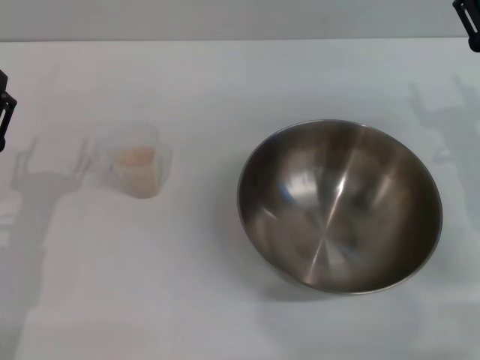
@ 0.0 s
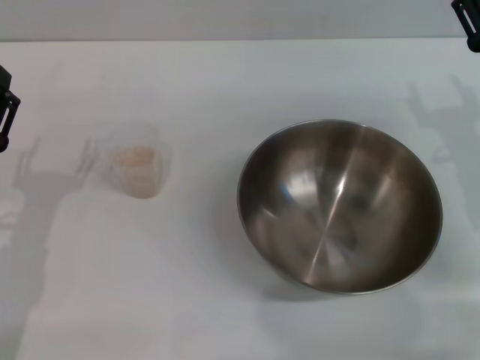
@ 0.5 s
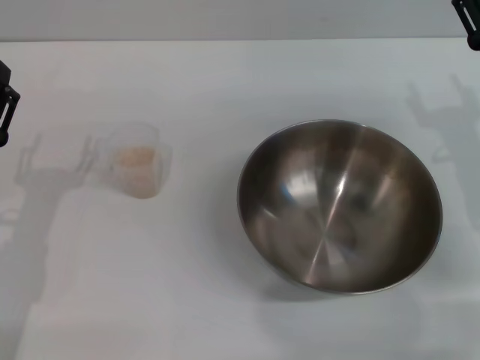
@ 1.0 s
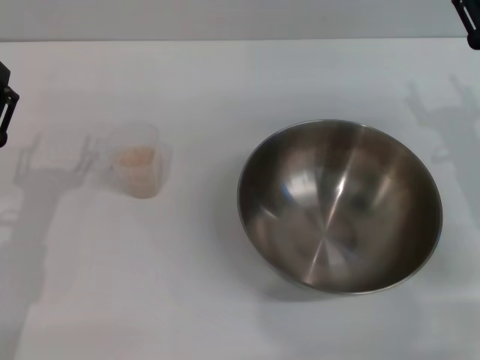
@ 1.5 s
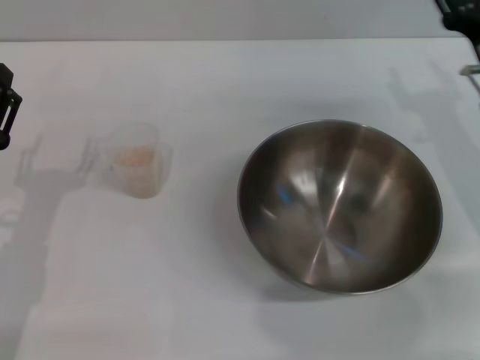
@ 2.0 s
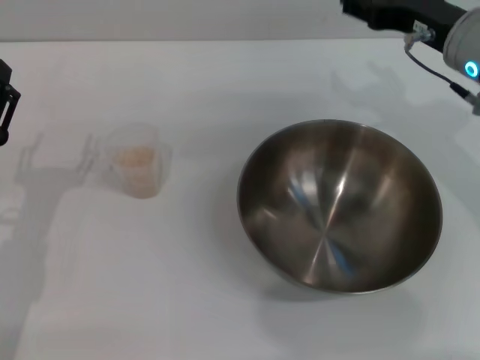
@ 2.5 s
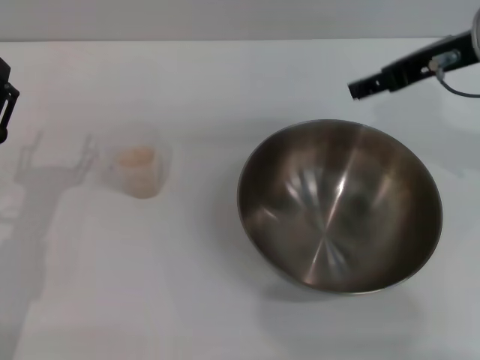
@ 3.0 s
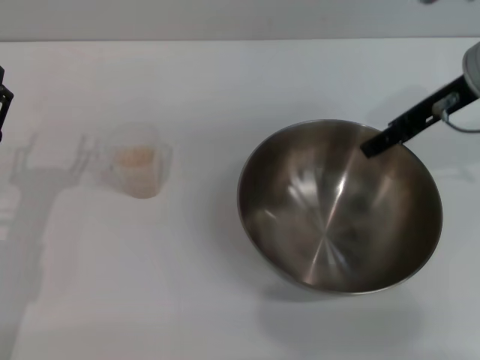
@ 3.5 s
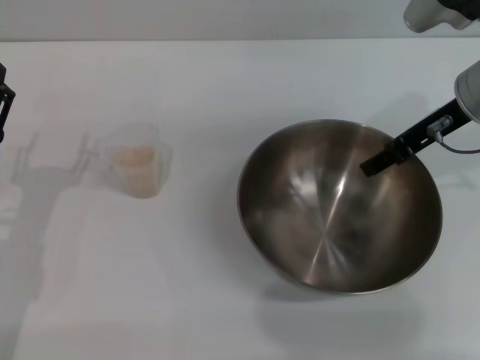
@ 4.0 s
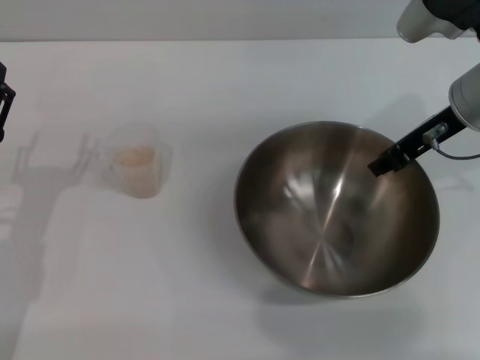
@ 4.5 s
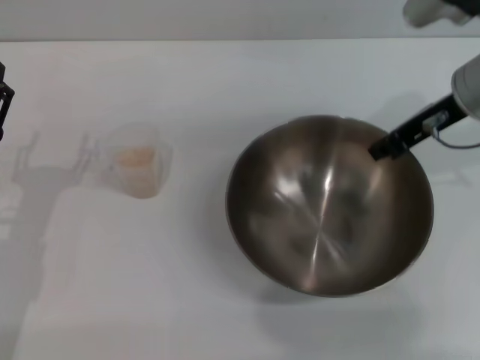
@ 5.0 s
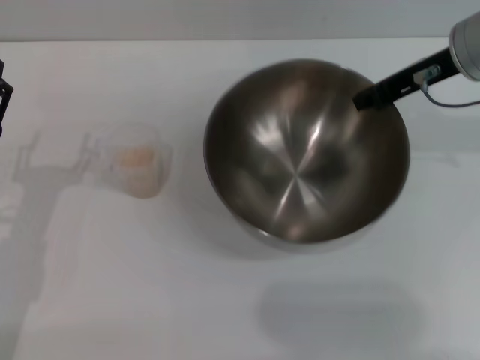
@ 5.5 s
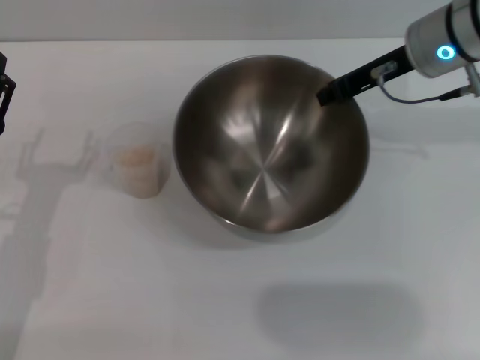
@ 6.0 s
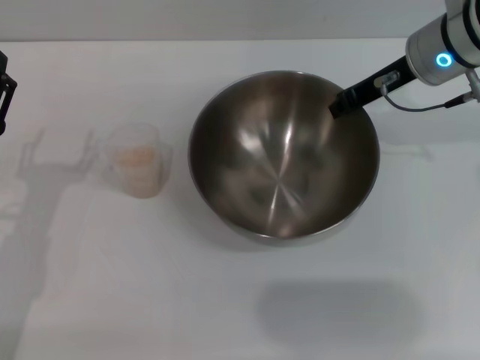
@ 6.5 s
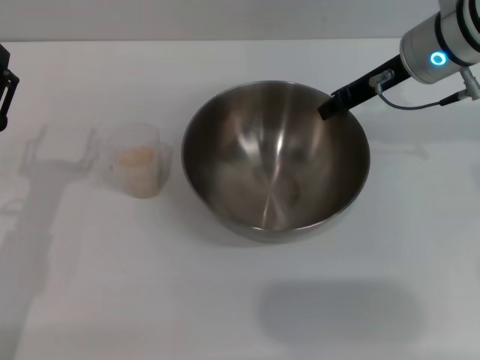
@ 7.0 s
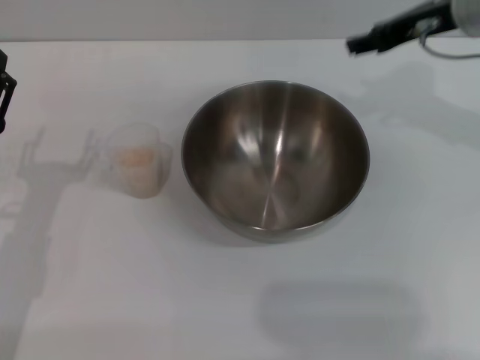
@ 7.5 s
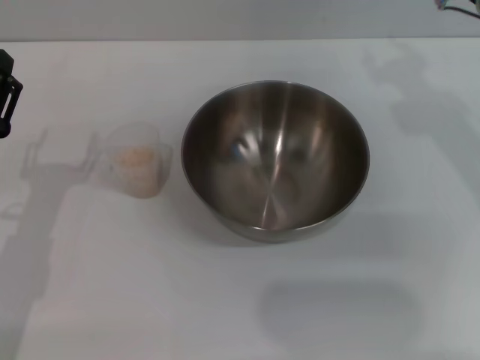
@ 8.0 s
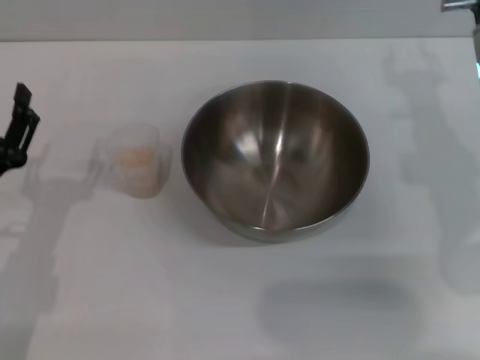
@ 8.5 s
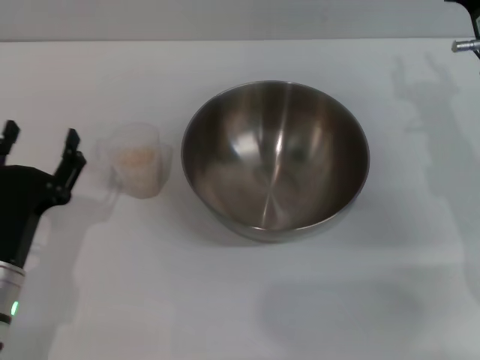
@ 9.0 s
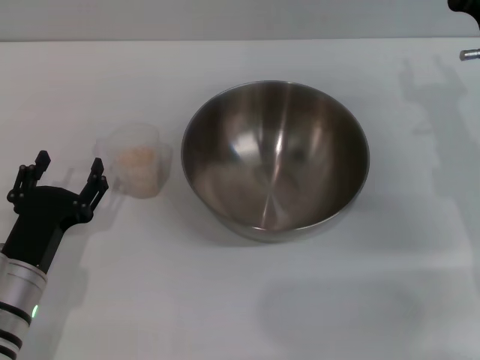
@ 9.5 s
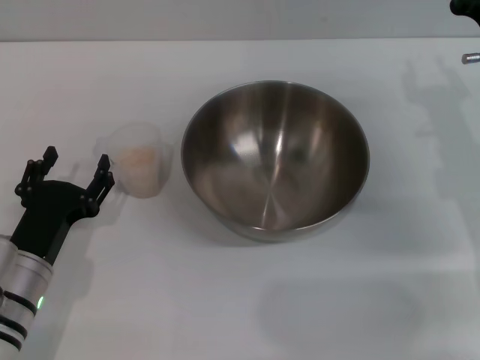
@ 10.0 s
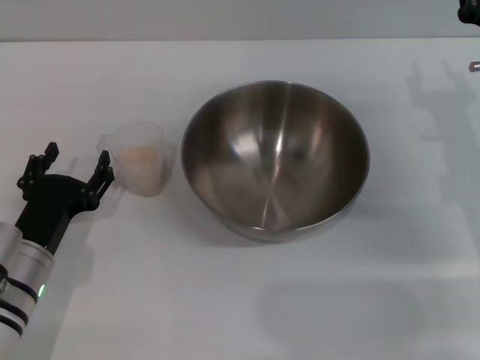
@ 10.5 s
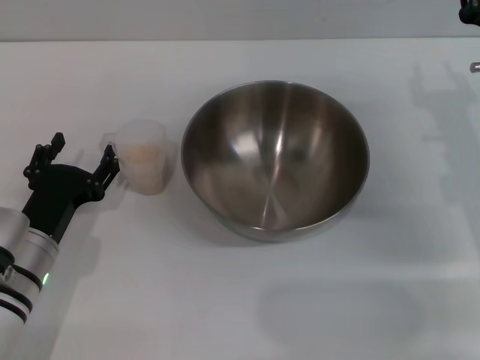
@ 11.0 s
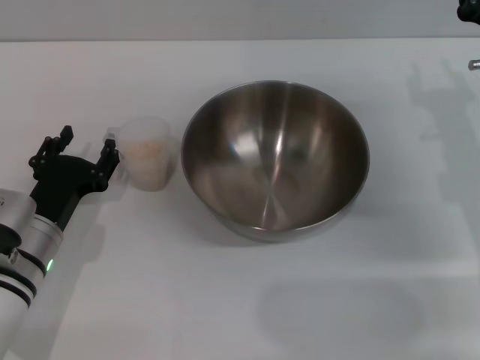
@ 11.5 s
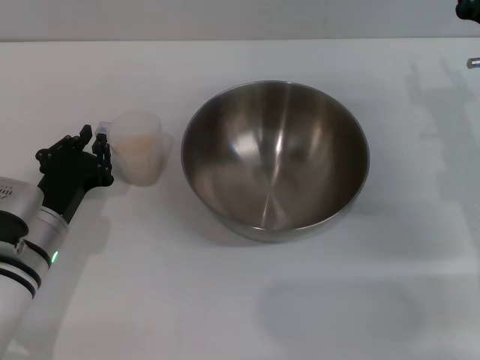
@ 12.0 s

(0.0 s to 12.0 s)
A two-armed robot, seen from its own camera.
Task of the whole recording: Place the bowl in the middle of the table with one hand and pour the rice from the grain cup into it with the other hand.
Step, 0.0 s - 5.0 s: Pick up the bowl with the right gripper.
Step, 5.5 s - 7.0 s: Place the bowl in the center of view with the right gripper.
0.0 s - 2.0 s: There are only small adjustments of the grippers.
2.0 s - 4.0 s: The right gripper shifts some 10 cm upward.
4.0 s - 6.0 s: The right gripper ends up some 5 cm from where it was, and closes its fingers.
6.0 s - 8.0 s: The right gripper changes place by approximately 5 cm, and opens its fingers.
8.0 s - 10.0 s: The right gripper heads downward, covering approximately 10 cm. The left gripper goes approximately 5 cm downward.
10.0 s - 12.0 s: The left gripper heads forward, covering about 5 cm, and closes.

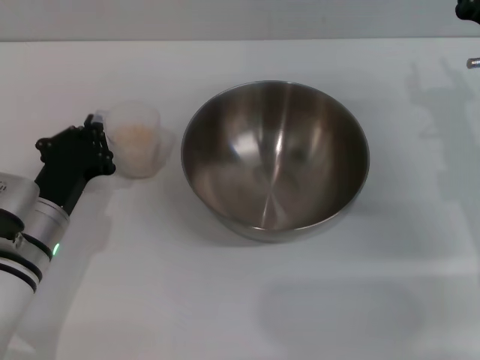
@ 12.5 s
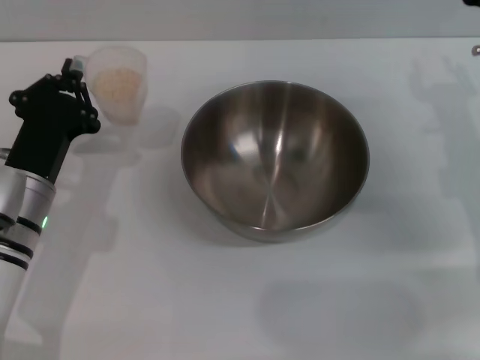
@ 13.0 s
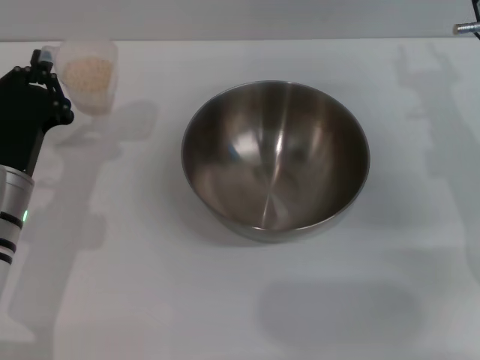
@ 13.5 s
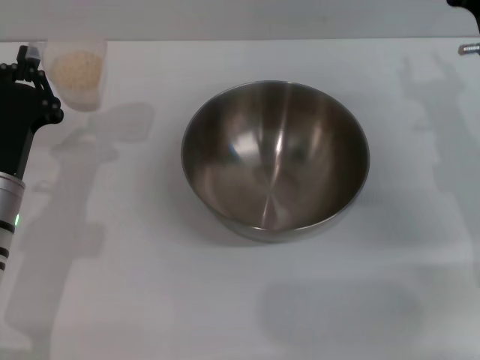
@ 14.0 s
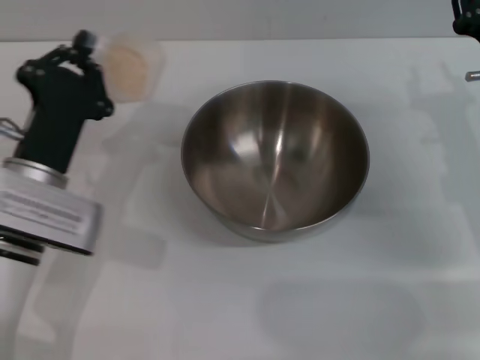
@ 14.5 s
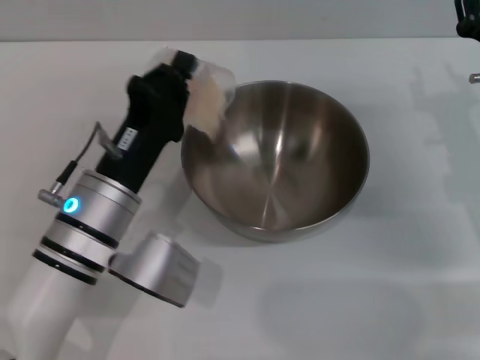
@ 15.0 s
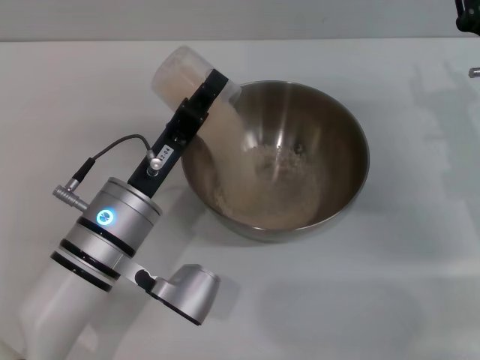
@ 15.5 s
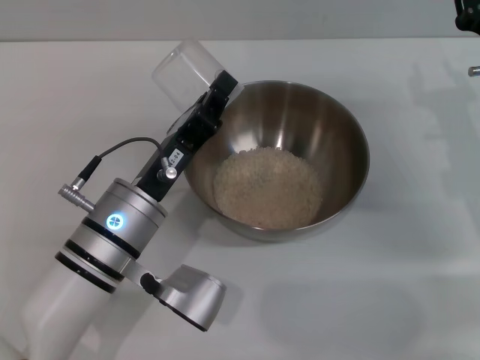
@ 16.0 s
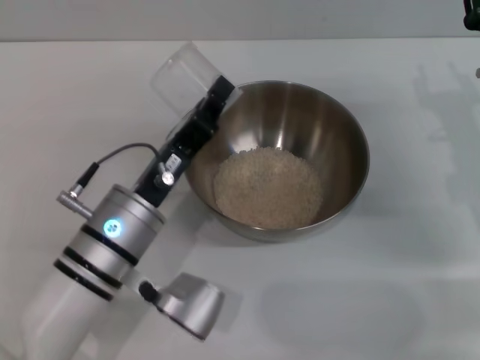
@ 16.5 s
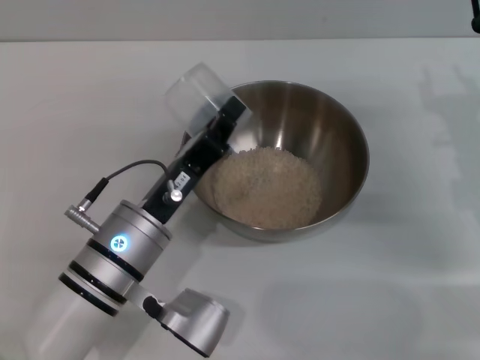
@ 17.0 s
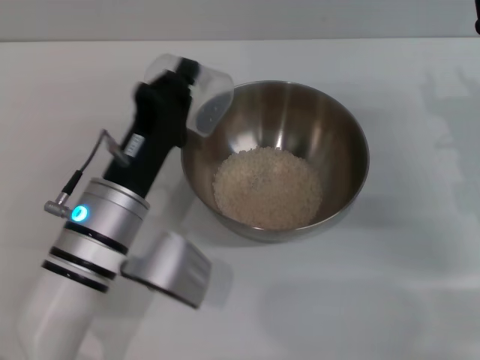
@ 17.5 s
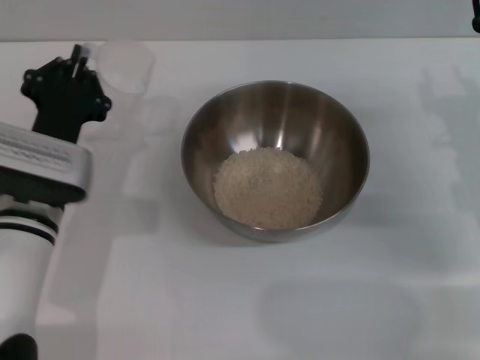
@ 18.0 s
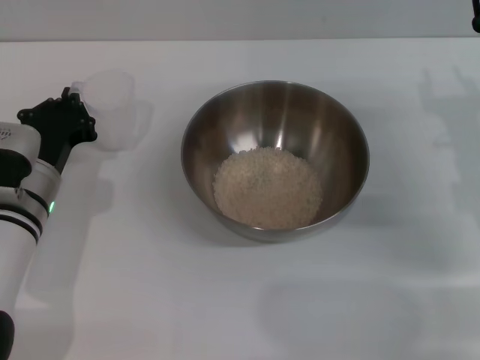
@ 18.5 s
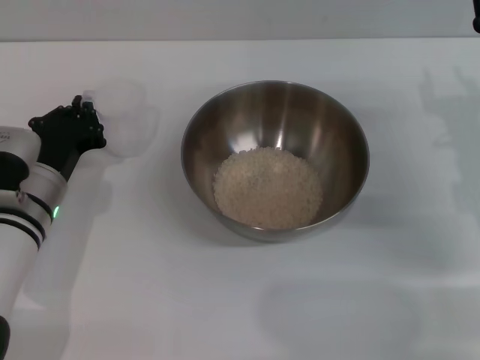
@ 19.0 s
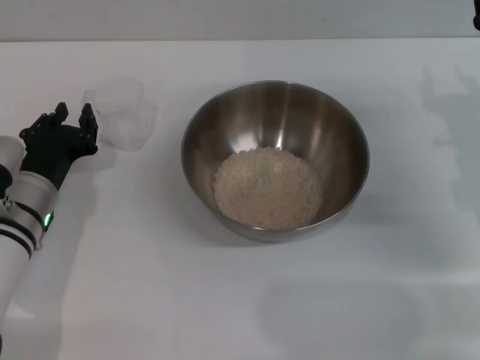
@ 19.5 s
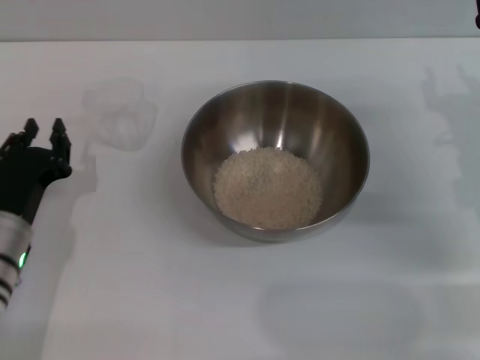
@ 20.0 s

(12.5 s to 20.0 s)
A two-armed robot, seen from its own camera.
Task of the whole recording: Place the bowl in the middle of the table with one hand and pour the rice from the grain cup into it with the other hand.
Step, 13.5 s - 17.0 s: Pour the rice from the cup into the bowl with the left gripper.
Step, 17.5 s - 19.5 s: Place the cup on the table with the left gripper.
12.5 s - 14.5 s: The left gripper changes place by some 5 cm.
14.5 s - 16.5 s: The left gripper travels to the right by roughly 5 cm.
16.5 s - 18.0 s: The left gripper moves to the left, approximately 5 cm.
18.0 s - 20.0 s: The left gripper goes about 5 cm to the left, and opens.

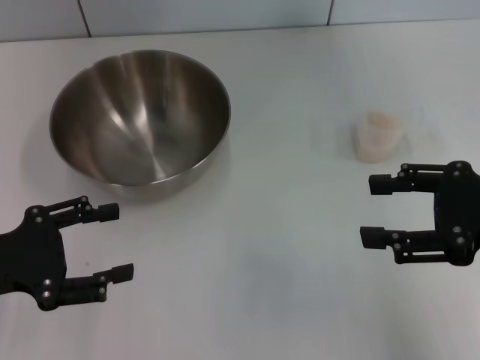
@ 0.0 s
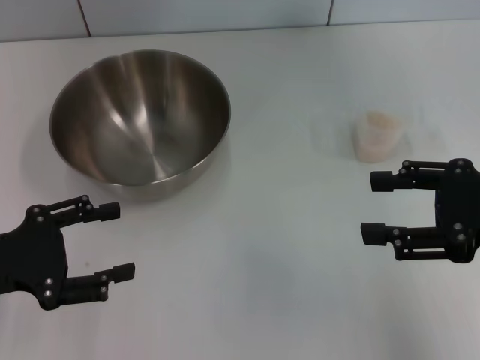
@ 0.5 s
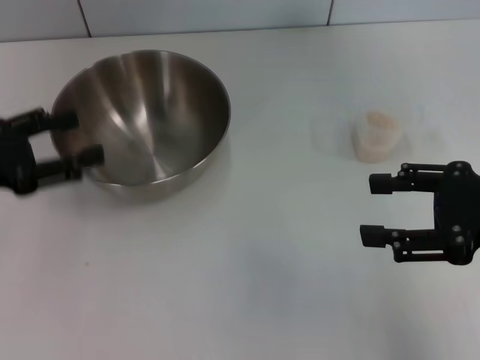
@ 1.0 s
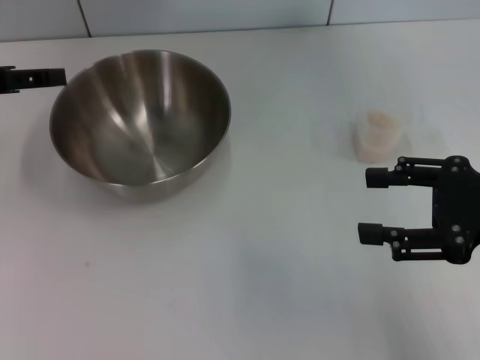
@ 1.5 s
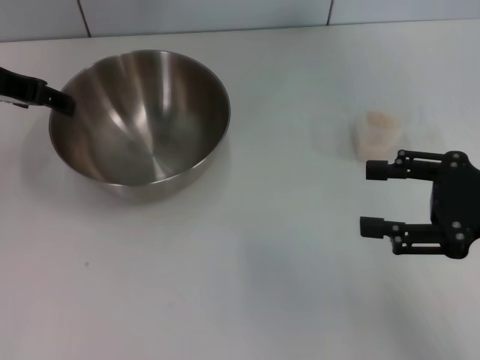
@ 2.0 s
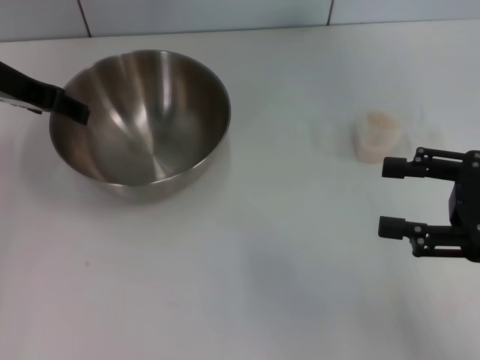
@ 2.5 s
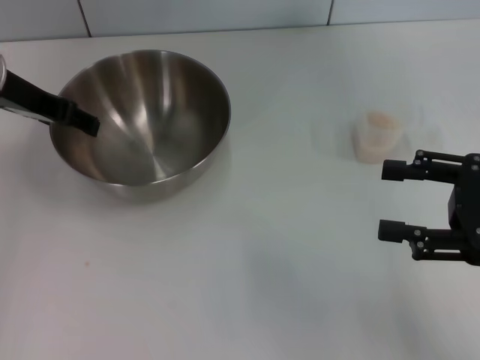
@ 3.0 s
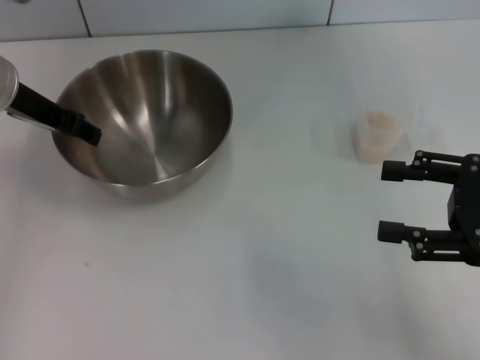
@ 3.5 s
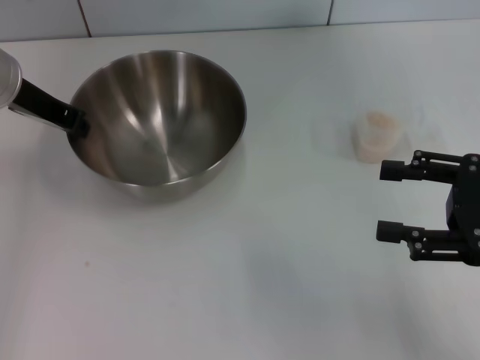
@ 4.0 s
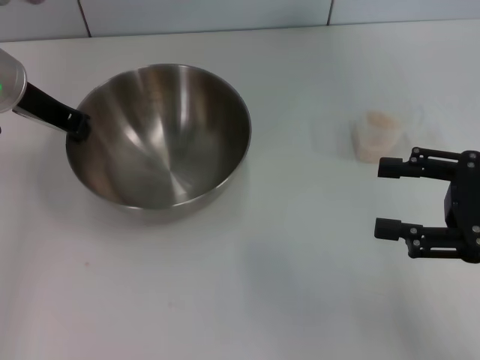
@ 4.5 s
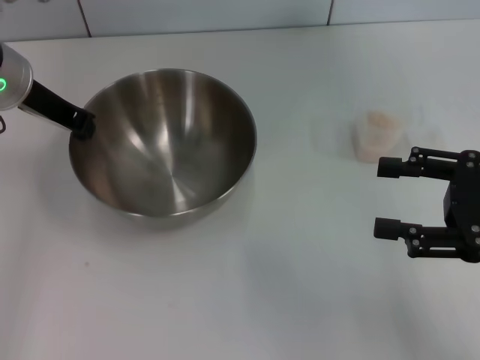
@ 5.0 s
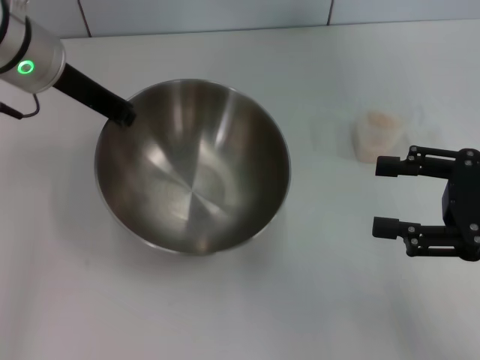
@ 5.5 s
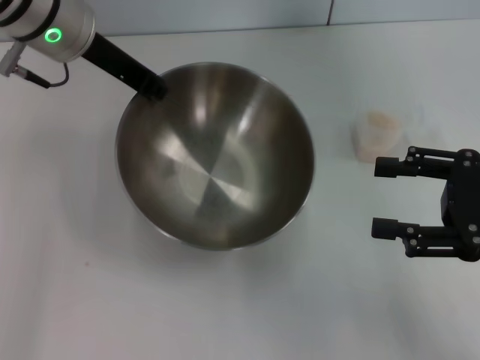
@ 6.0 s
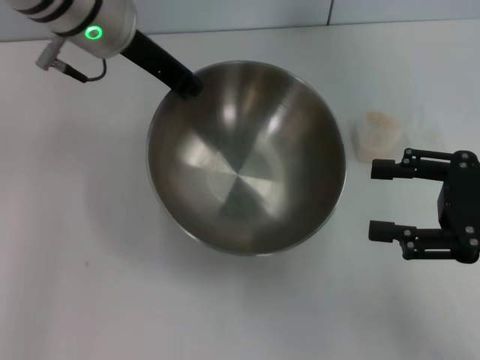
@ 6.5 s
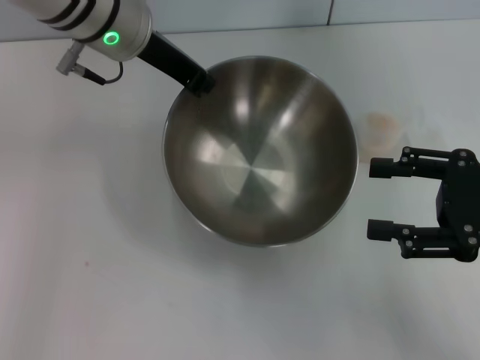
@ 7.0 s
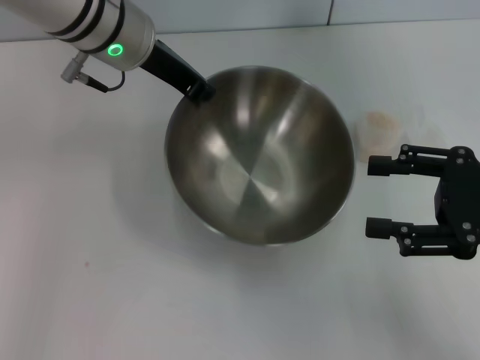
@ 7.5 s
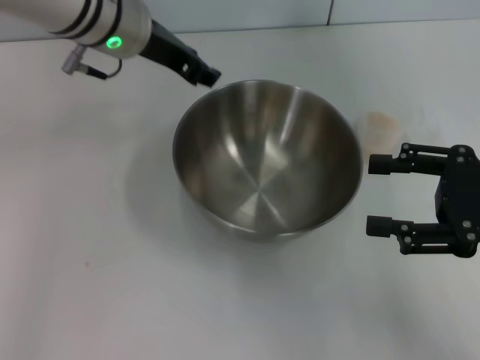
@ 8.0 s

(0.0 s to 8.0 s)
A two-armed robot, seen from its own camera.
Task of the whole recording: Place the bowl in the middle of the table with one hand and pour the rice from the grain cup into it with the other hand.
Step, 0.0 s - 5.5 s: Pick up the bowl with the left gripper.
0.0 s - 2.0 s: The left gripper is displaced forward and upward by about 20 cm.
2.0 s - 4.0 s: The left gripper closes.
4.0 s - 6.0 s: The left gripper is displaced to the right by approximately 5 cm, and closes its fingers.
